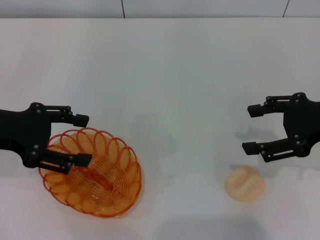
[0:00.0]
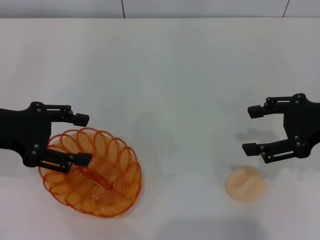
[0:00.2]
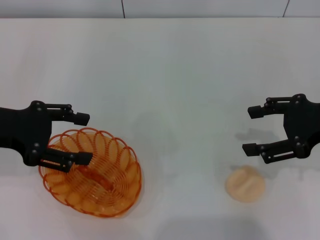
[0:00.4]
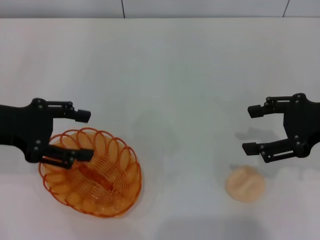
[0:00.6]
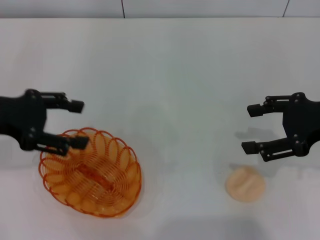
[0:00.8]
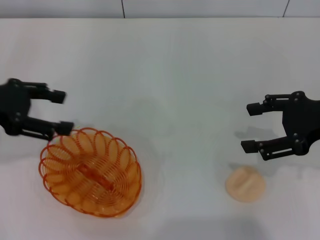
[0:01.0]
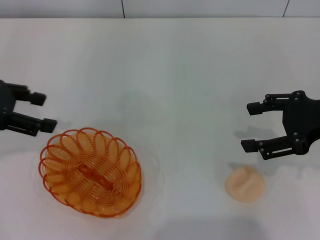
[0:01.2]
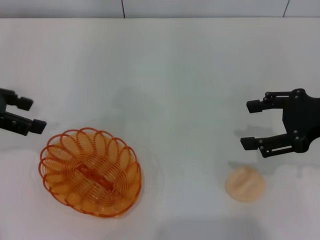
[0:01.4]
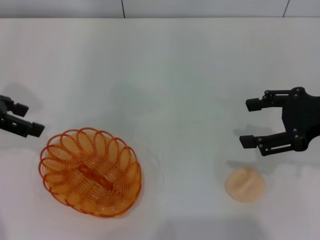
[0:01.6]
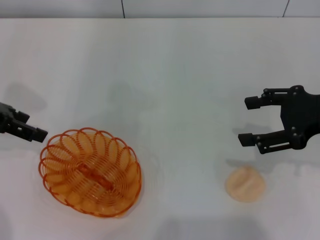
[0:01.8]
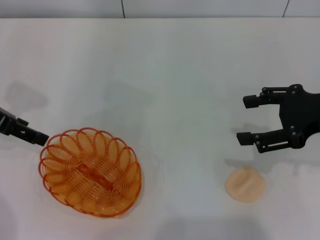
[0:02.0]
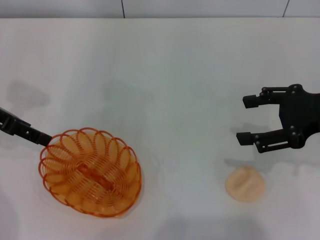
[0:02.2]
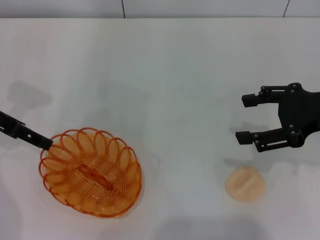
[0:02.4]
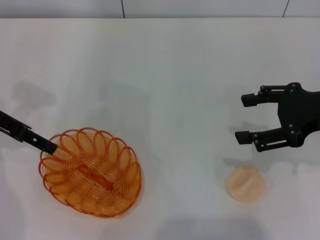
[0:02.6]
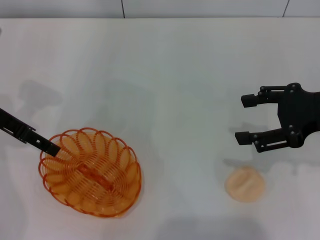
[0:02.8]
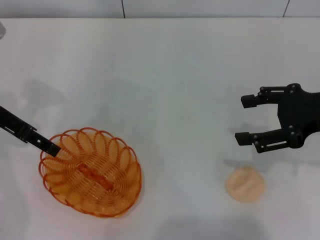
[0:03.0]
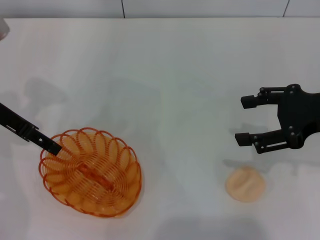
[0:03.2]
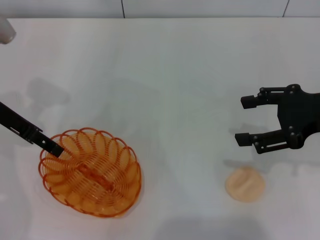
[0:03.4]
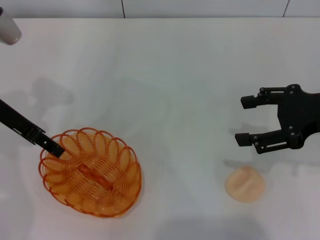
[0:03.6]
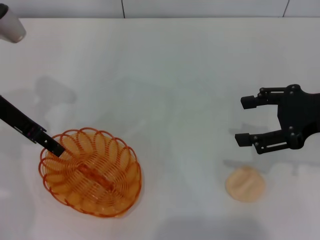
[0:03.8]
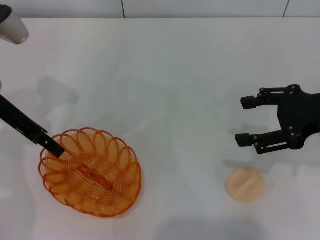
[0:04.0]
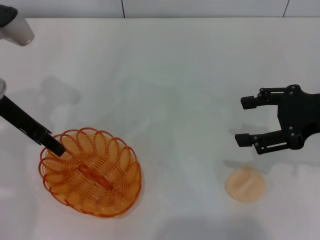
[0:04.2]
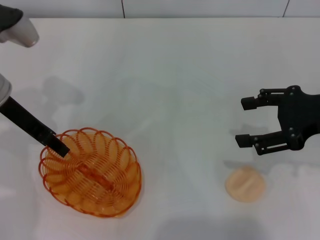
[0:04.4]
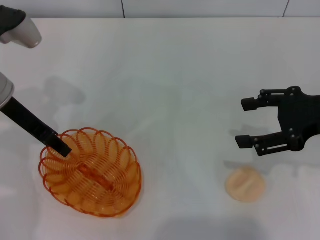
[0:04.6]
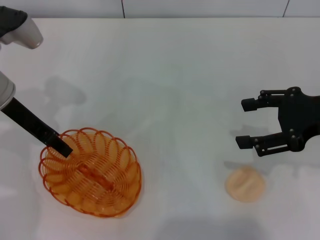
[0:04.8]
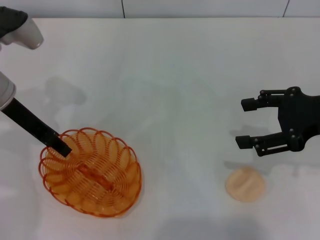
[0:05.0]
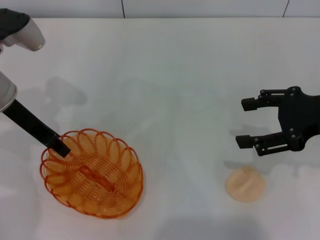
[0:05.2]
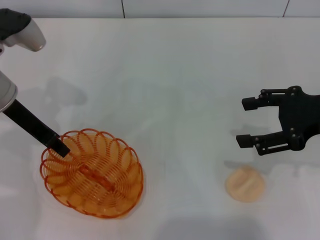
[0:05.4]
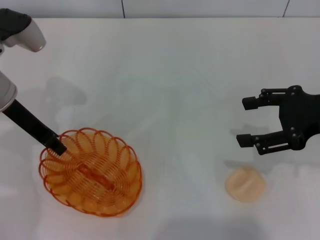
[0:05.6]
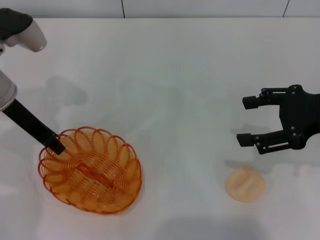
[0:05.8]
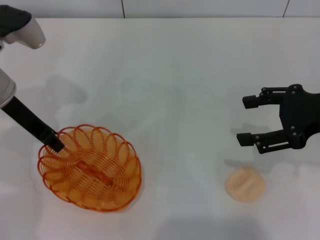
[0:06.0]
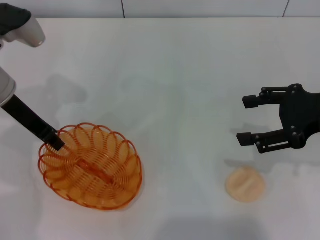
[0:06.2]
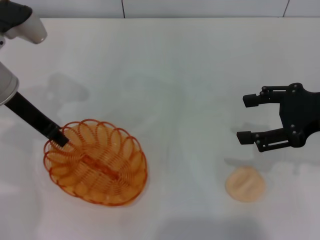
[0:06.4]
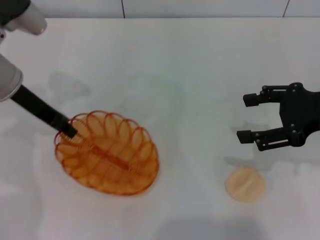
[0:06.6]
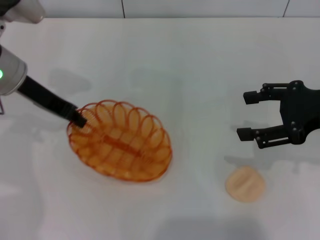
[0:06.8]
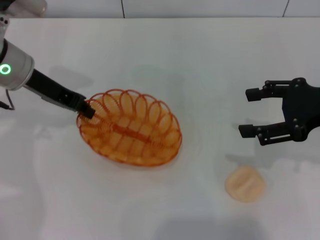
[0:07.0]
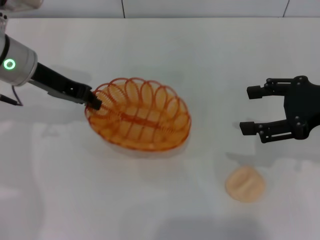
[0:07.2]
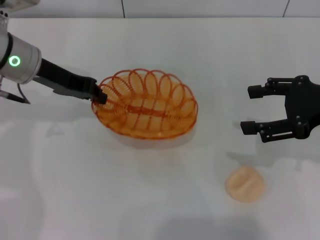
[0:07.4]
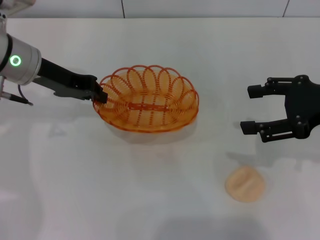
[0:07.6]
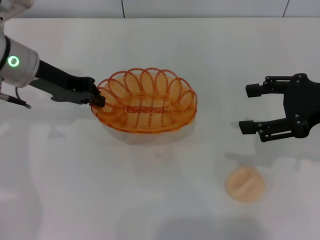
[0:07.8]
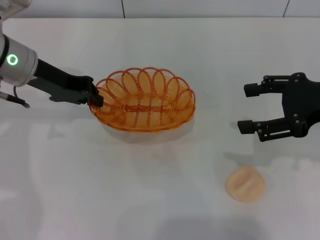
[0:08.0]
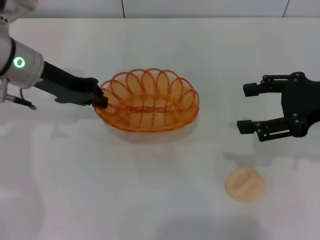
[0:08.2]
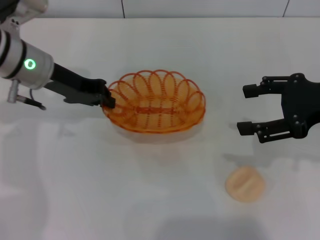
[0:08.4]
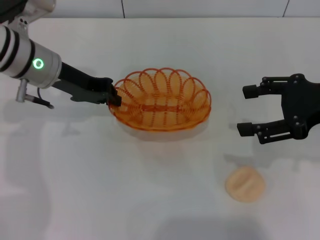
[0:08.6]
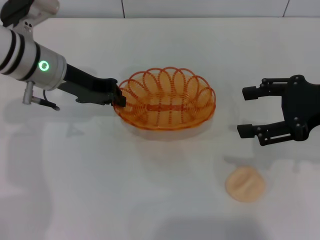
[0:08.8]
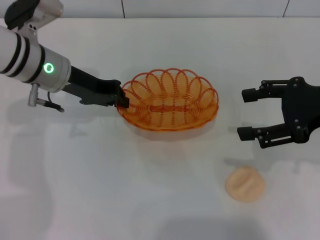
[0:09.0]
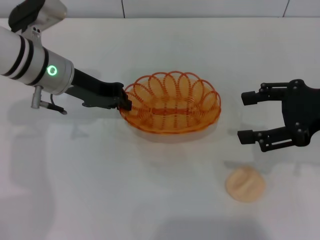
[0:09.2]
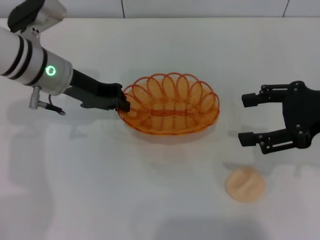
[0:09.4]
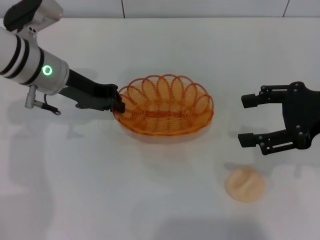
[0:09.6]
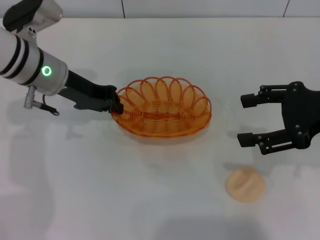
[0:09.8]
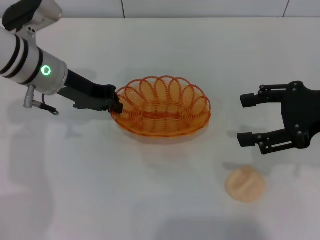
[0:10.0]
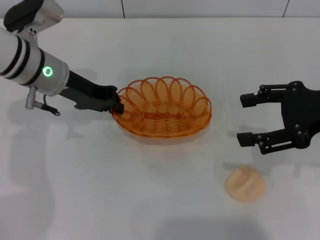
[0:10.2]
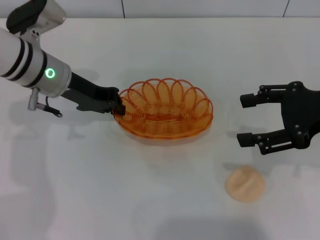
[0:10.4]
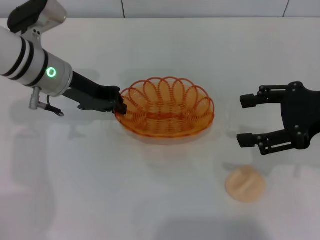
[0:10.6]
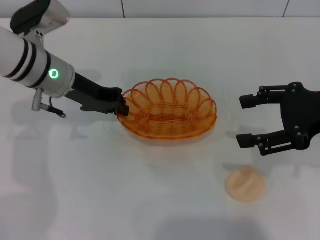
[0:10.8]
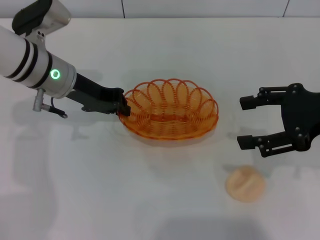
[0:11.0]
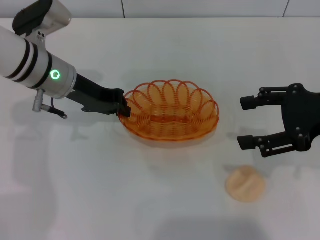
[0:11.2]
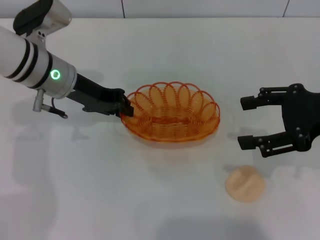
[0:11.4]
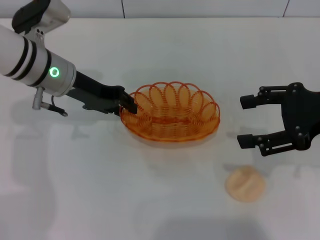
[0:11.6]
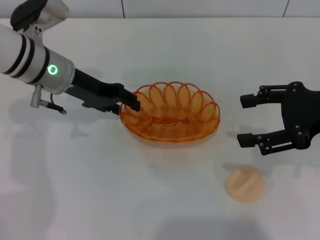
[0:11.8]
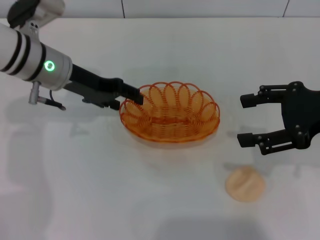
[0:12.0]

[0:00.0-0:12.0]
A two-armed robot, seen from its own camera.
Step, 0:00.0 to 0:06.8: Pick up the basket with the left gripper.
0:00.0 to 0:01.6: The left gripper changes place by approximately 5 cm.
0:01.6 to 0:03.0: The left gripper changes place by approximately 5 cm.
0:03.0 to 0:04.4: The grippers move only a little.
0:04.4 to 0:06.0: The left gripper closes its fingers.
0:07.6 to 0:09.0: The grippers make only small movements.
0:09.0 to 0:10.4: Neither gripper changes place.
0:10.4 to 0:12.0: The left gripper opens up.

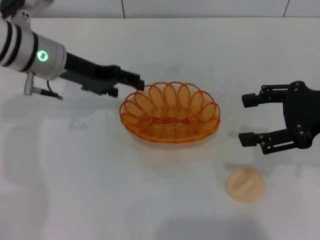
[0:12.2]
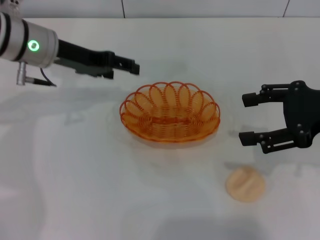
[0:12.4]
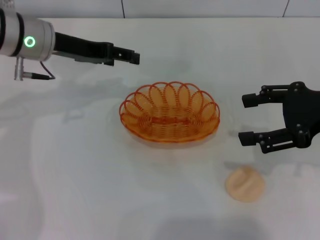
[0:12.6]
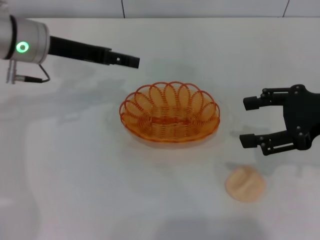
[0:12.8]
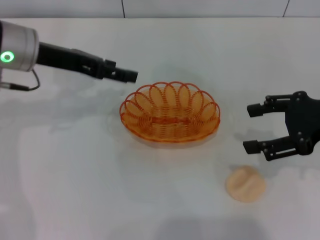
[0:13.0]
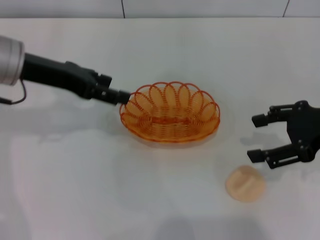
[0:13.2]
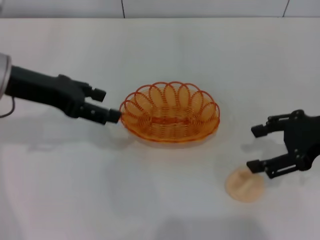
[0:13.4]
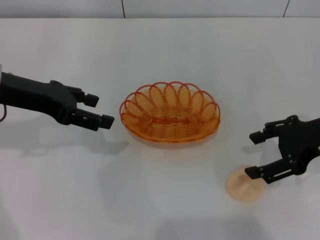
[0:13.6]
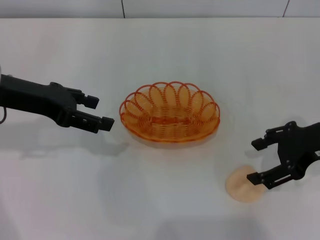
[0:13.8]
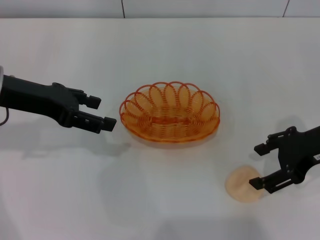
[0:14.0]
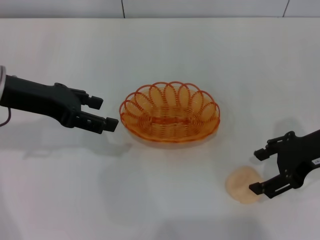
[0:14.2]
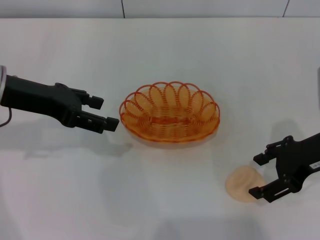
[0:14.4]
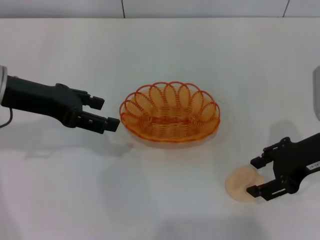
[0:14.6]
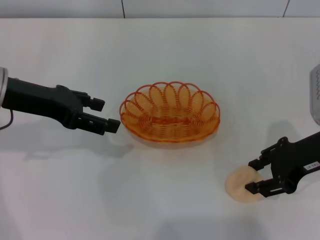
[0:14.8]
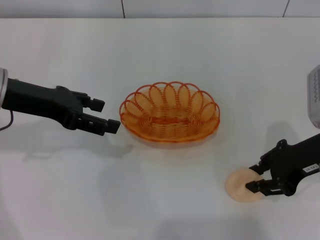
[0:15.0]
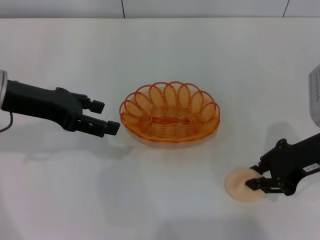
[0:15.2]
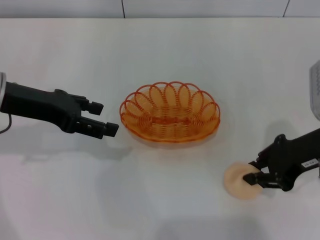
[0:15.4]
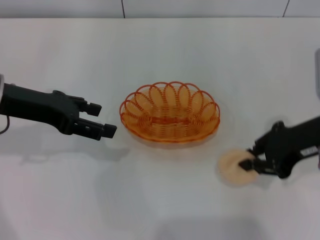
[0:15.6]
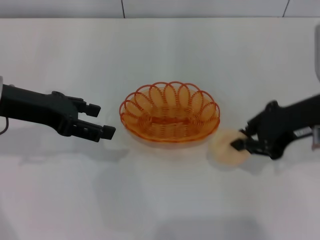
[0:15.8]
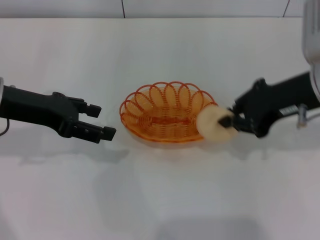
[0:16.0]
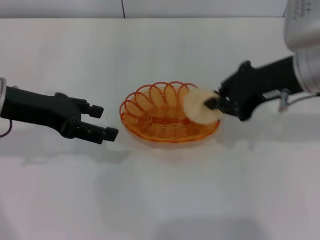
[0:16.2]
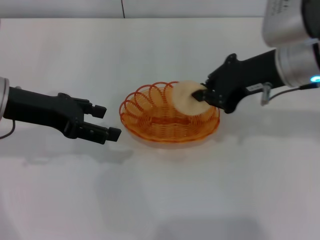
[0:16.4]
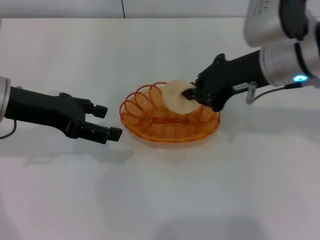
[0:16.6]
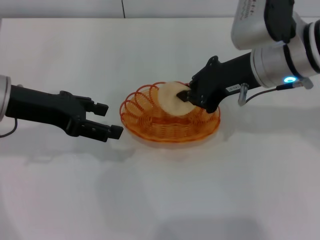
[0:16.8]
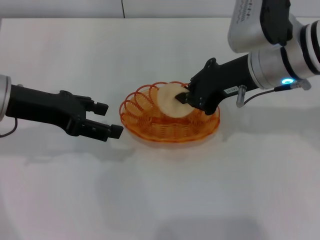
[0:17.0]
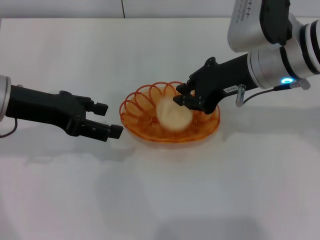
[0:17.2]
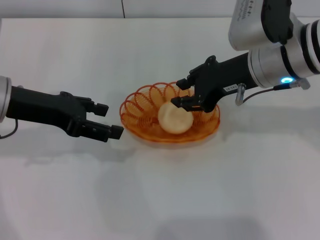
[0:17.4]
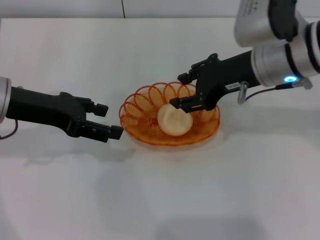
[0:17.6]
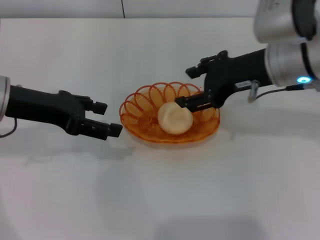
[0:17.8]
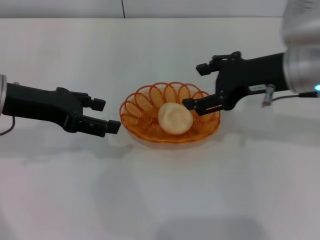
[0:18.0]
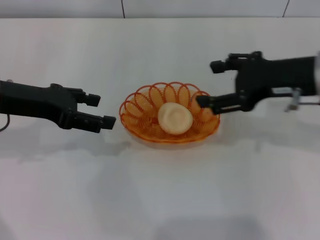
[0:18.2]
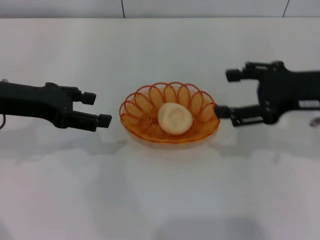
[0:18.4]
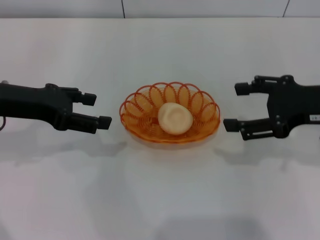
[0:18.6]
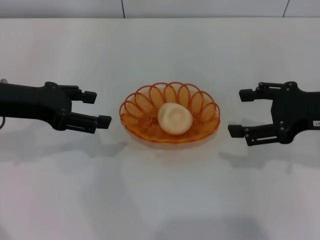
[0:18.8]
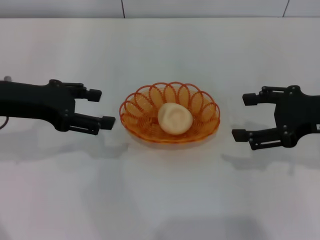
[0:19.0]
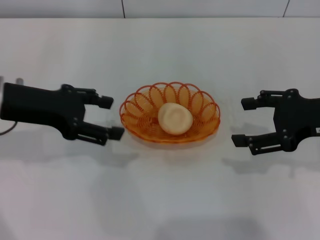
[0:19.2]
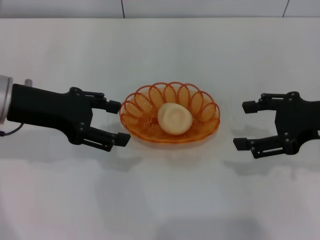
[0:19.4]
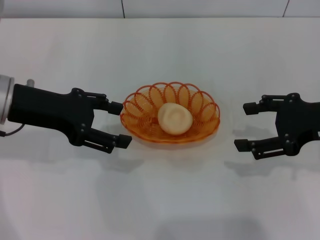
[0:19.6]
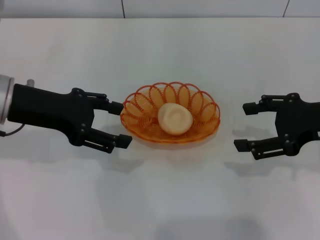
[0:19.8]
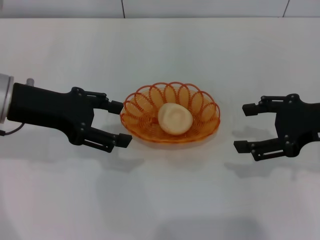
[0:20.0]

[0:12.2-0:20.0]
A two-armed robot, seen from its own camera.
Step, 0:12.4 to 0:15.6: Pick up the egg yolk pastry with the right gripper.
Step, 0:15.8 to 0:17.8: Place the egg yolk pastry into the basket with the right gripper.
0:12.2 to 0:13.8: The left gripper is displaced backward and to the left by approximately 10 cm.
0:13.8 to 0:15.4: The right gripper closes.
0:15.4 to 0:16.8: The right gripper moves to the left and forward, approximately 10 cm.
0:16.8 to 0:18.4: The right gripper heads to the right and backward, covering some 10 cm, and opens.
0:18.4 to 0:20.0: The grippers make only small movements.
